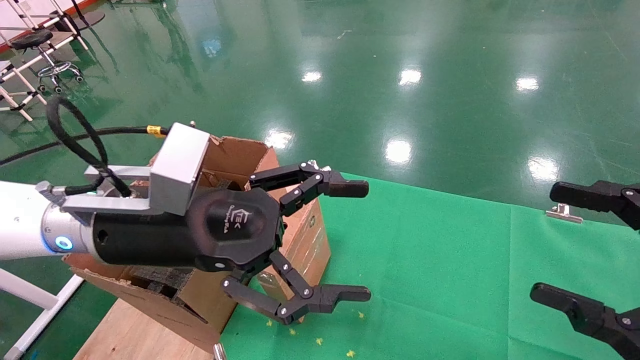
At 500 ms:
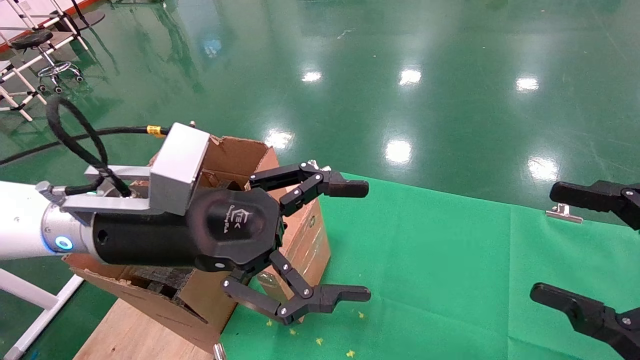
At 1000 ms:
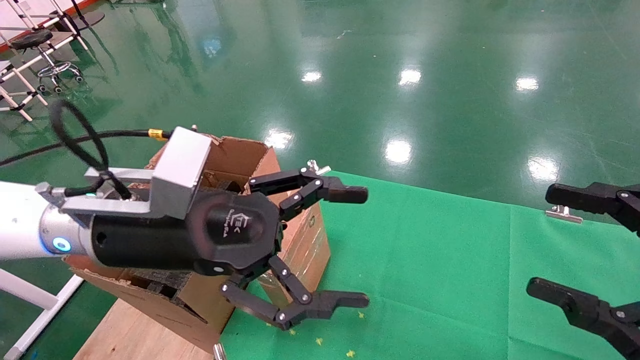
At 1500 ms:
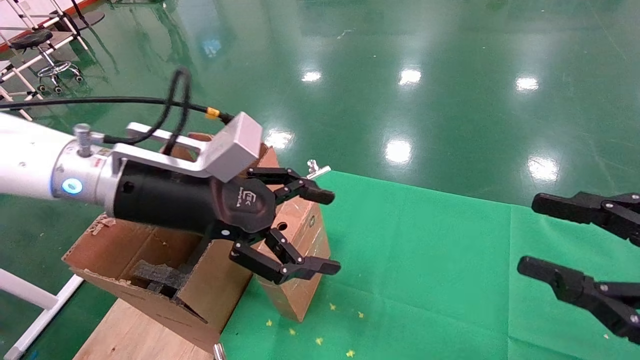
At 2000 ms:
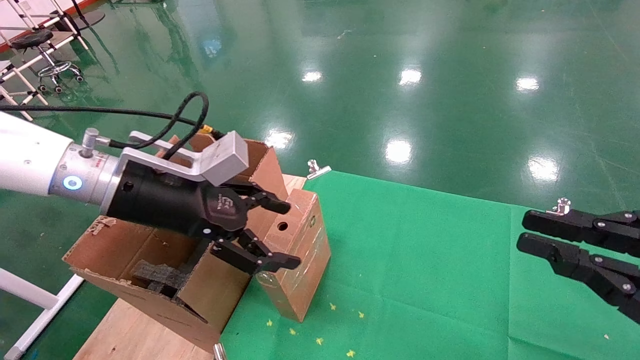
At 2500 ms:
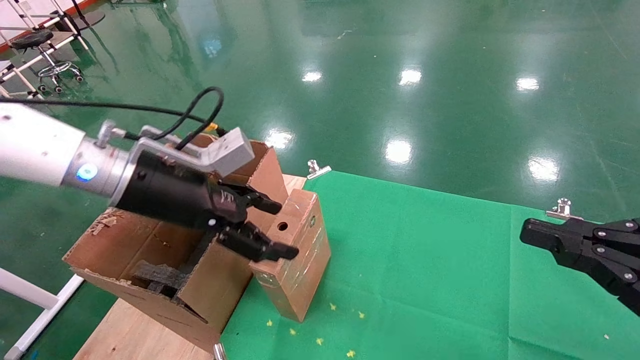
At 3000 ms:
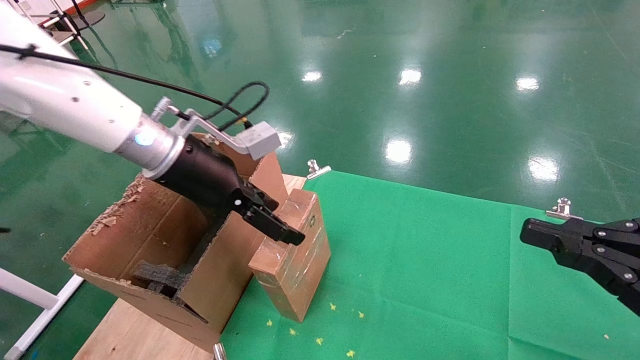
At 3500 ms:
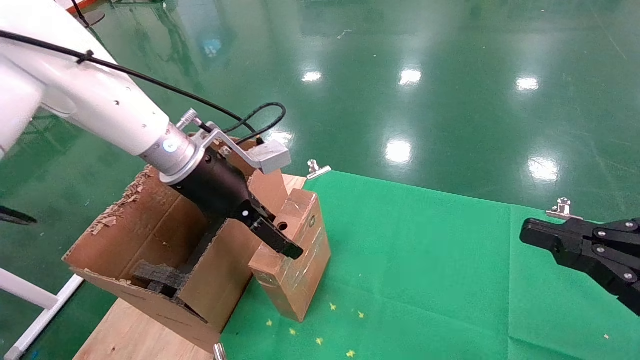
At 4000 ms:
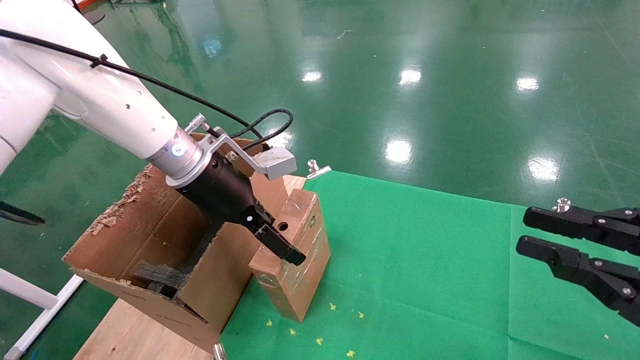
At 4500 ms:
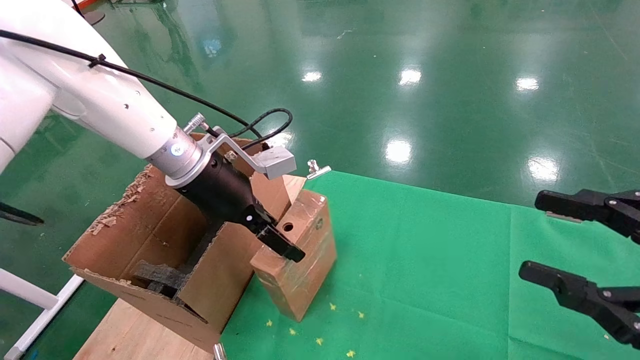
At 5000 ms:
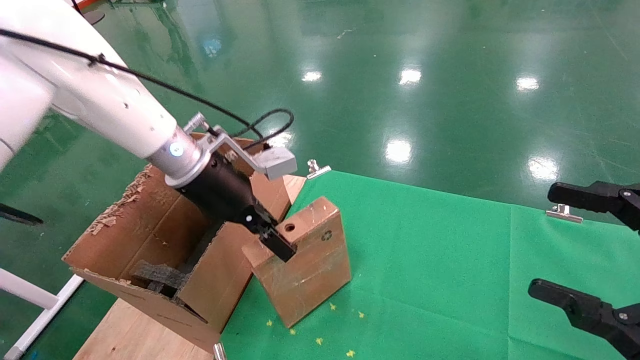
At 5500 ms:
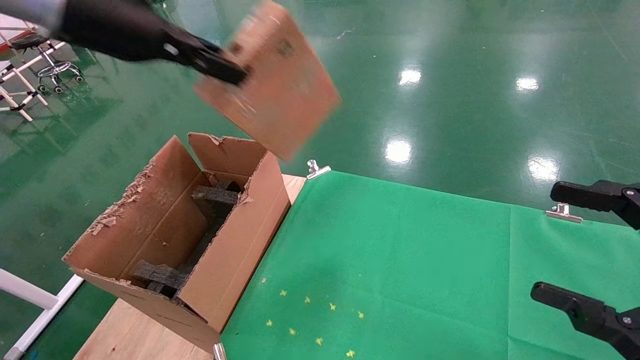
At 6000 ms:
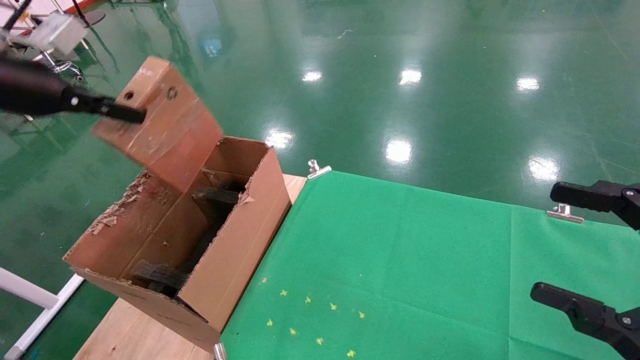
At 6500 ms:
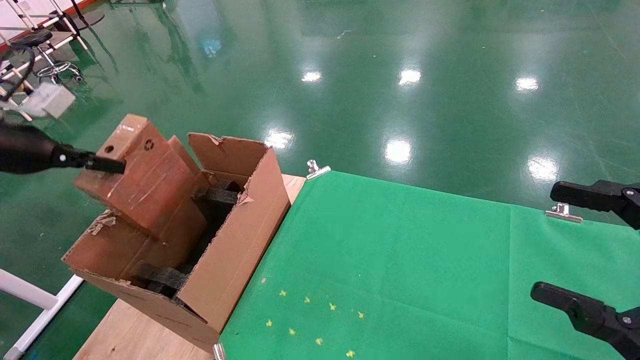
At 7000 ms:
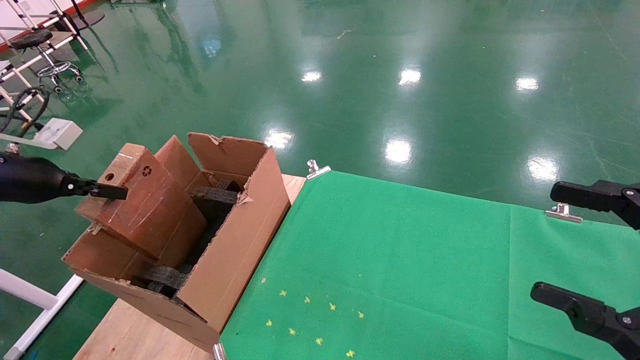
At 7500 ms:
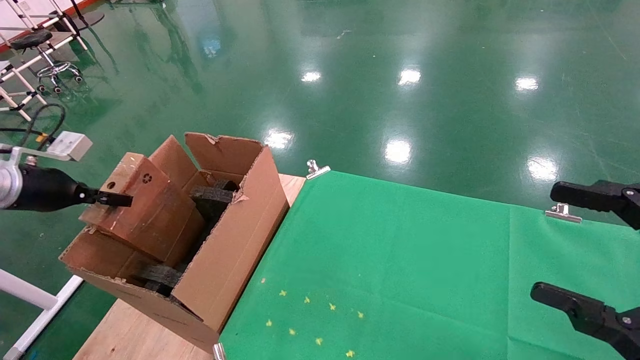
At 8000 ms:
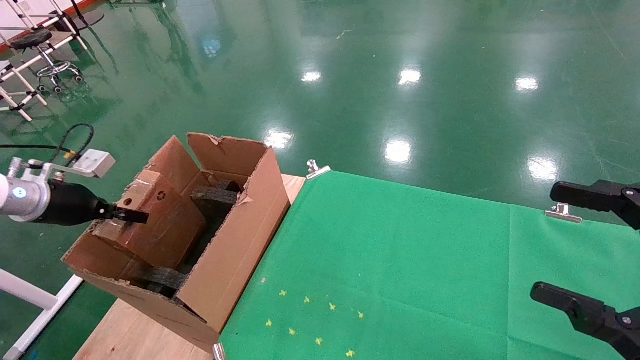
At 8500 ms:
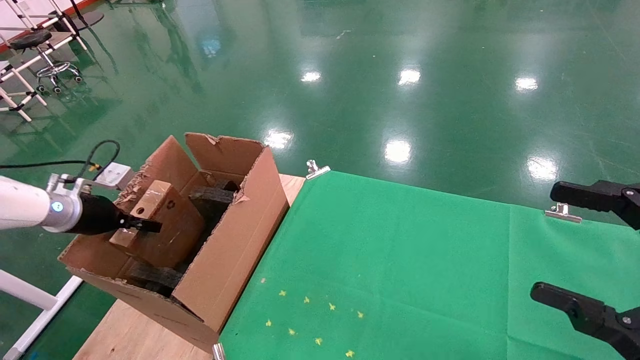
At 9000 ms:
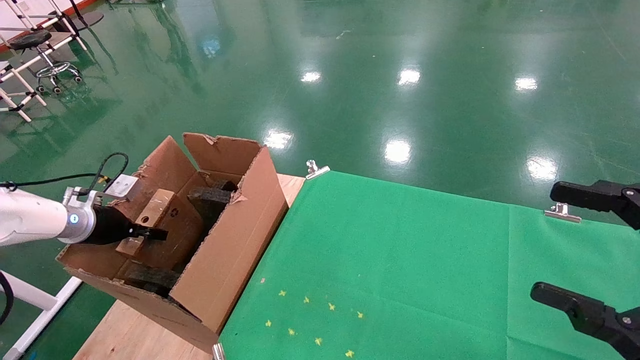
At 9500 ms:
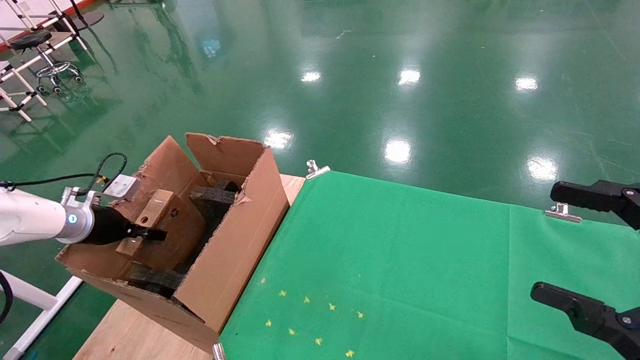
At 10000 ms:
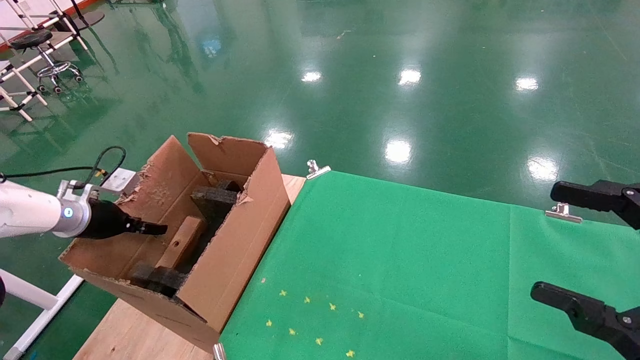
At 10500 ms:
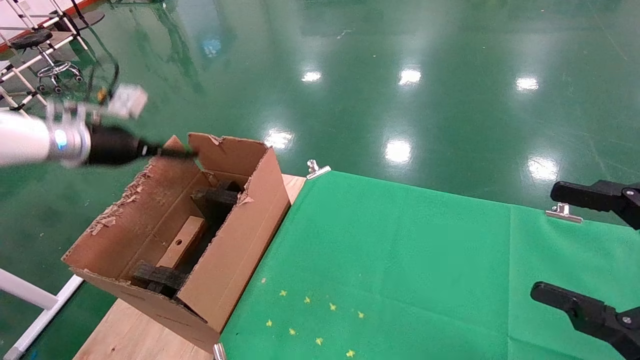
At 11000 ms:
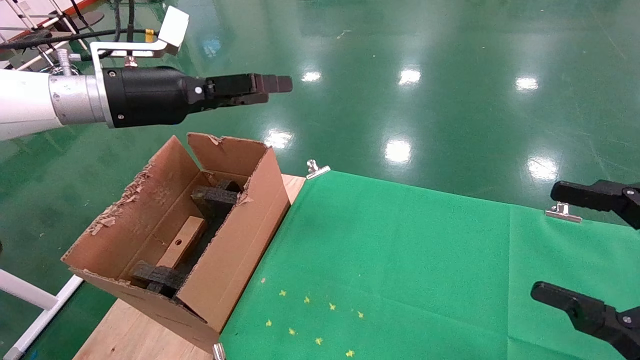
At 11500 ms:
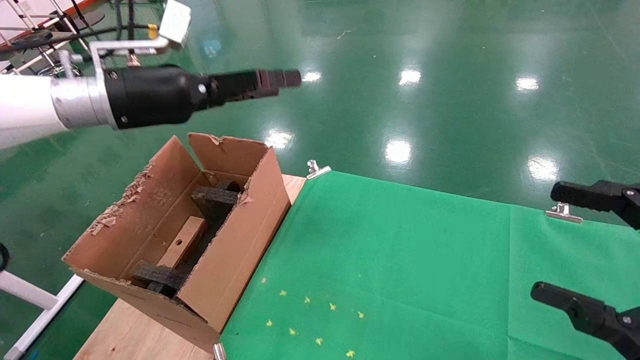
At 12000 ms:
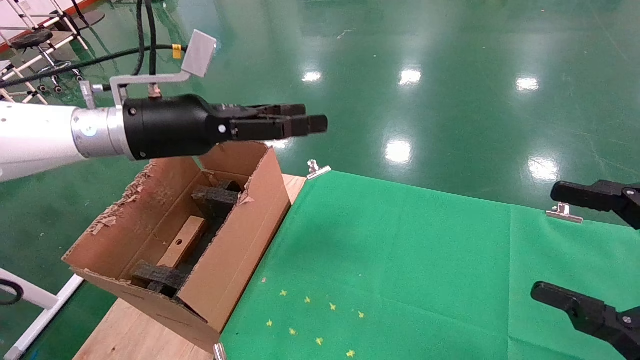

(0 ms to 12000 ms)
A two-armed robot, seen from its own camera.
Task of the whole recording: using a robotic arm to pick up a cardboard box and palace it the carton.
Step, 1000 ms - 4500 ms: Pick up the mouse and the power cord paper box.
Step, 5000 ms - 10500 ms: Place the mouse and the power cord paper box into the container.
0 ms - 2000 ms: The left gripper changes place by about 5 cm. Meanwhile the right gripper closes up.
2000 ms - 4000 ms: The left gripper heads forward, covering about 10 cm.
4000 ms - 6000 ms: The right gripper opens up, while the left gripper moves to the left and upward, about 25 cm, and closes up.
6000 ms - 8000 ms: The left gripper is displaced downward by about 20 cm.
8000 ms - 10000 ms: The left gripper changes place by roughly 5 cm, and opens its fingers.
10000 ms - 12000 ms: The left gripper heads to the right and upward, covering about 30 cm, and opens its fingers.

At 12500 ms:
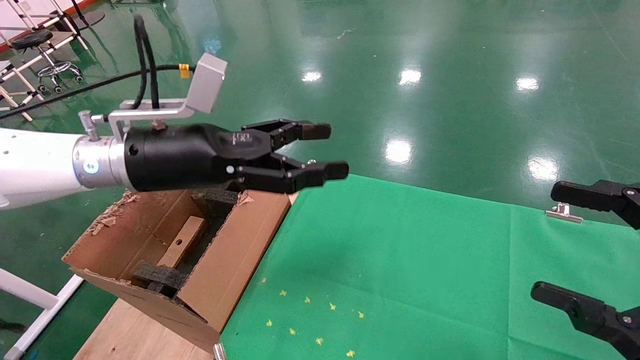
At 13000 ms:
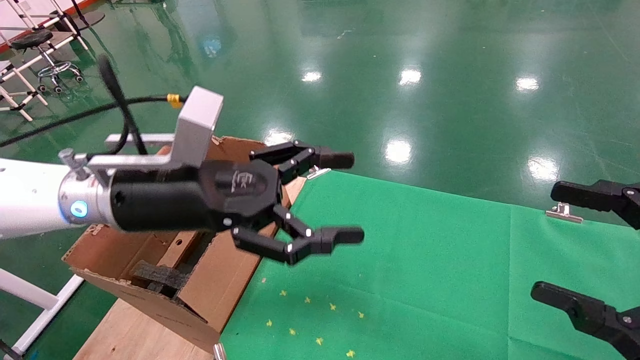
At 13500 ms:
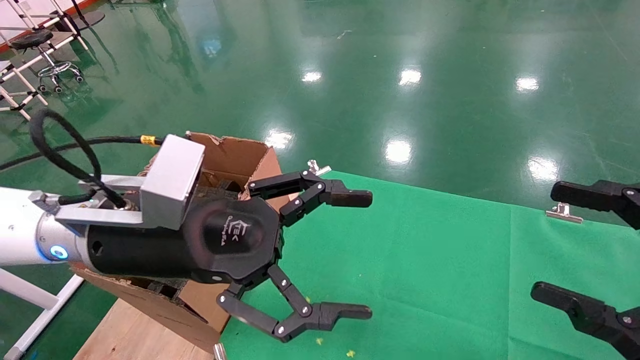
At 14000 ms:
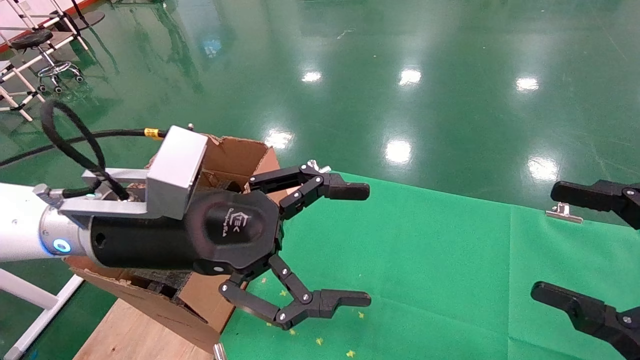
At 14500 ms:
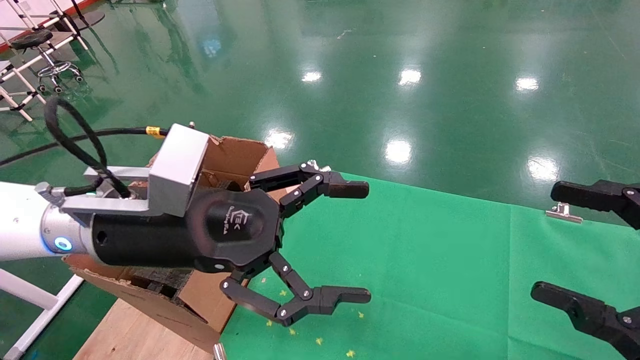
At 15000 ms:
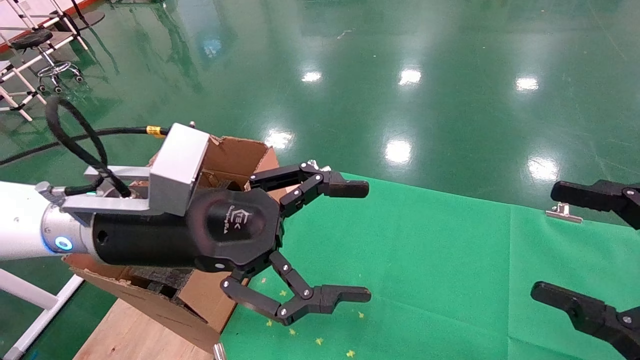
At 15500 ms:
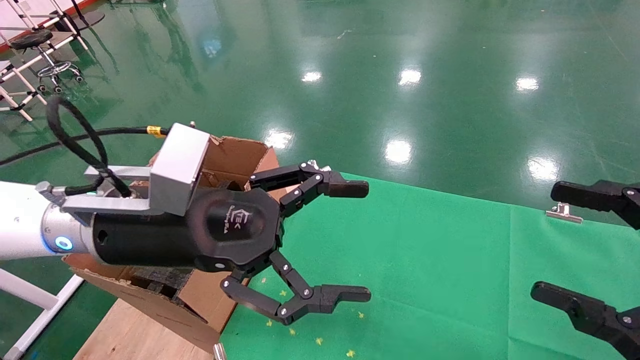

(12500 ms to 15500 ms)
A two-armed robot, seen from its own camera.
Task of the whole recording: using a robotic arm to pick up a cardboard box and palace it the carton.
12500 ms - 14000 ms: The left gripper shifts roughly 5 cm backward.
14000 ms - 15500 ms: Both grippers stay about where they are.
